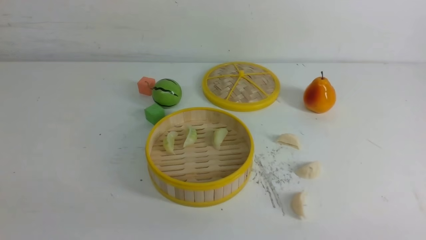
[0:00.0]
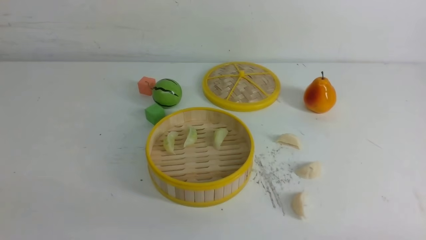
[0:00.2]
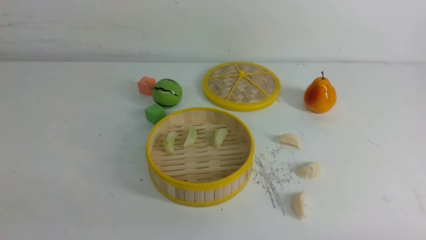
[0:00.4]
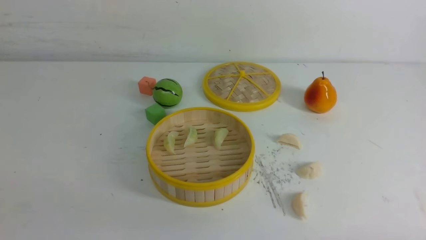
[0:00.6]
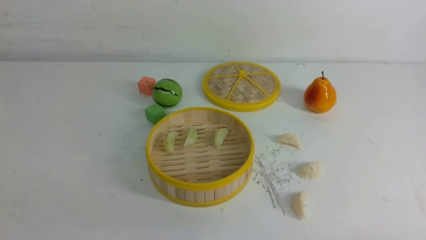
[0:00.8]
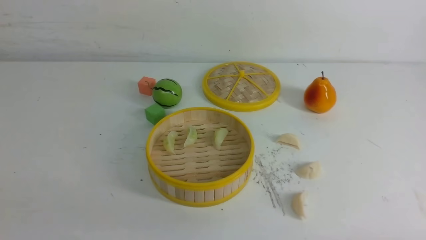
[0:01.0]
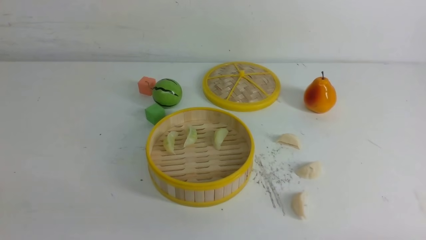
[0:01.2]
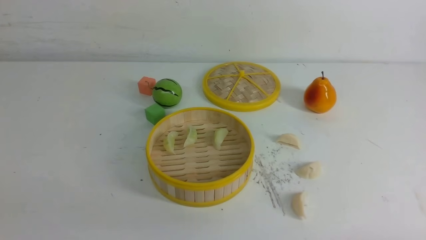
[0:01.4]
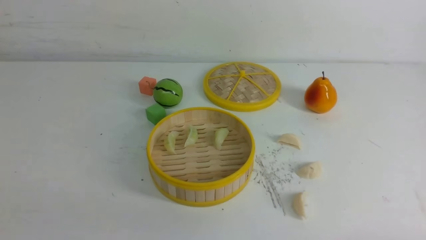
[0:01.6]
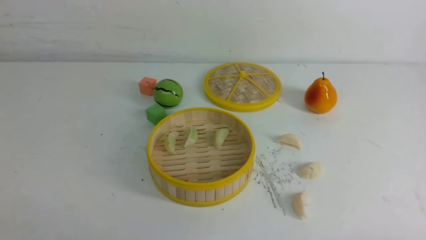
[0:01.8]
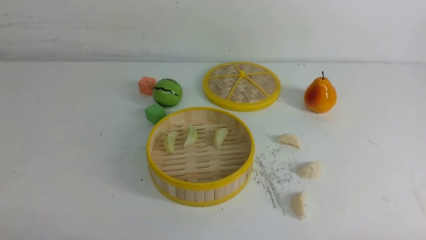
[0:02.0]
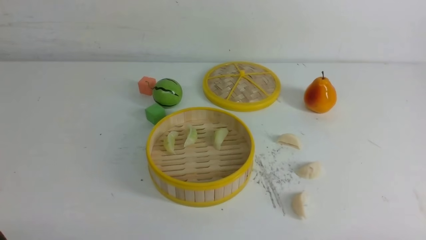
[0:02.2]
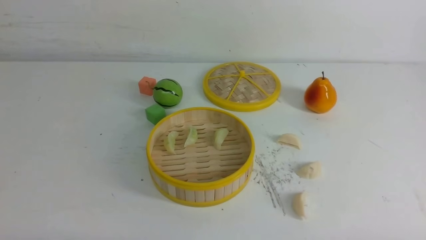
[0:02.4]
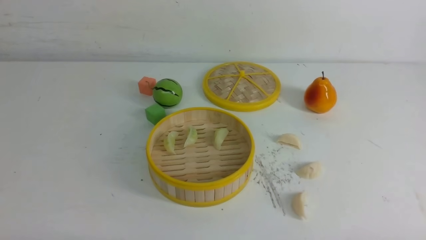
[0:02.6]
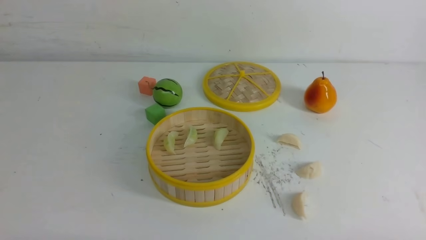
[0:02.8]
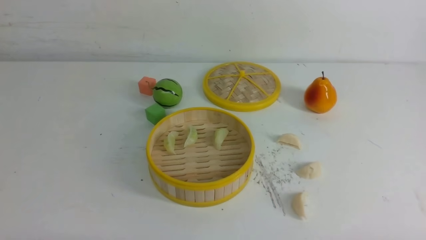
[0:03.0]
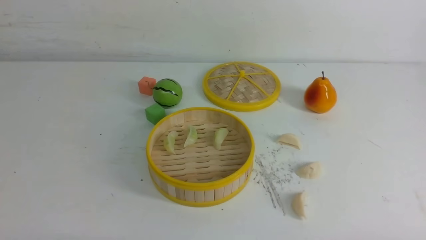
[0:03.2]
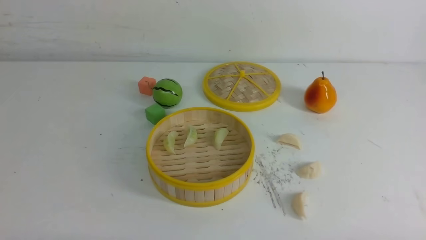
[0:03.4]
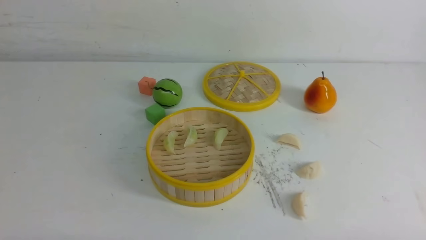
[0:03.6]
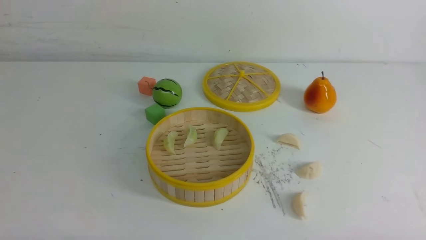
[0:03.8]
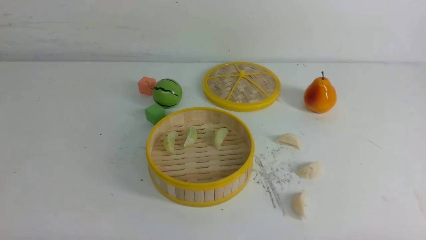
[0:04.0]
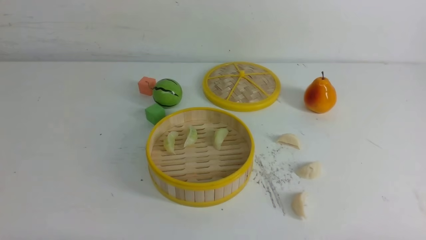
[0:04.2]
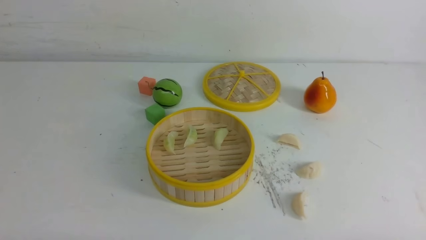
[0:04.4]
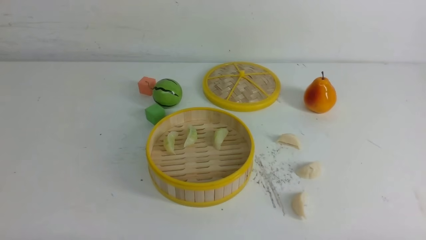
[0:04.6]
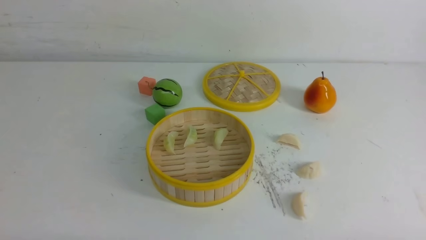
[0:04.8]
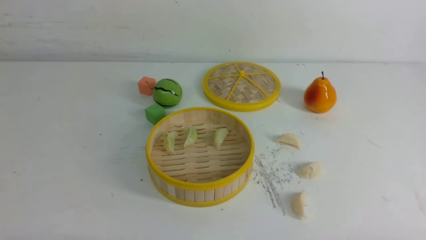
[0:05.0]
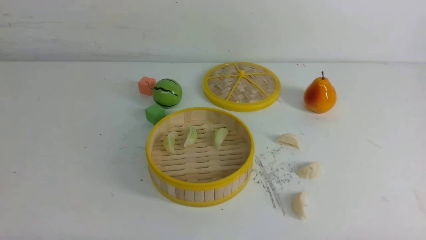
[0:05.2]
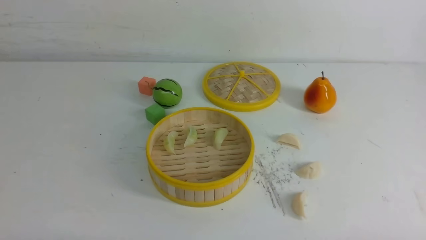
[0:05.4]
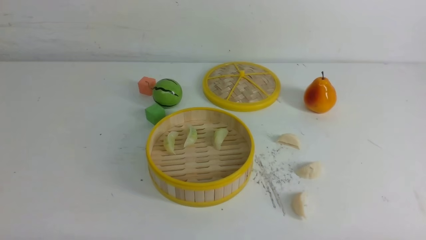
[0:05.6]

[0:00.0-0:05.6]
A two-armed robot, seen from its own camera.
Task of the whole recording: put the dumplings into the steamer on the white table.
0:02.8 to 0:05.6: Both grippers stay put.
